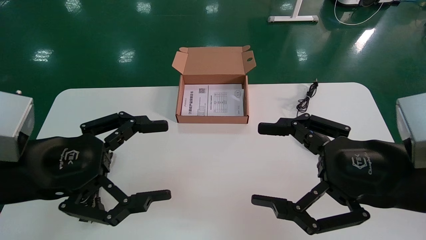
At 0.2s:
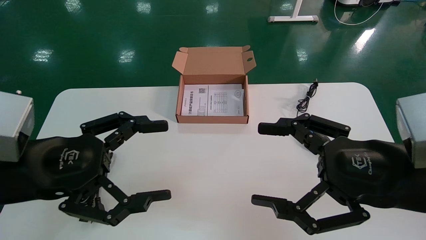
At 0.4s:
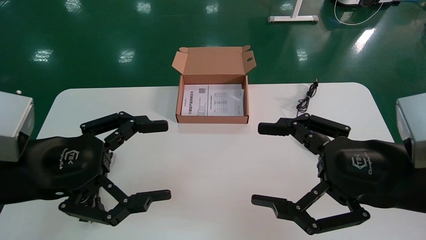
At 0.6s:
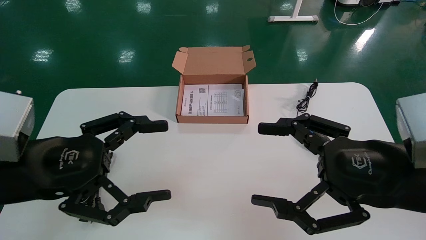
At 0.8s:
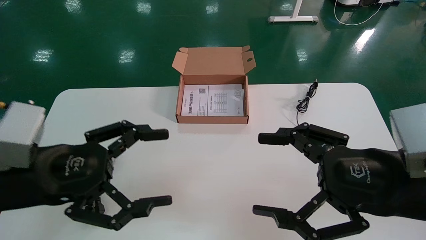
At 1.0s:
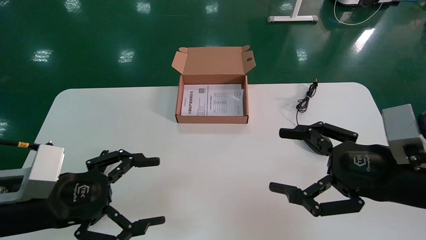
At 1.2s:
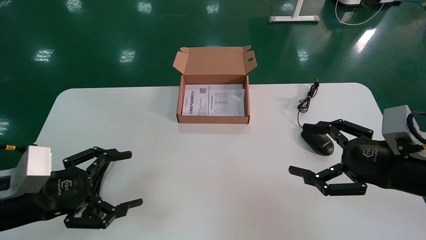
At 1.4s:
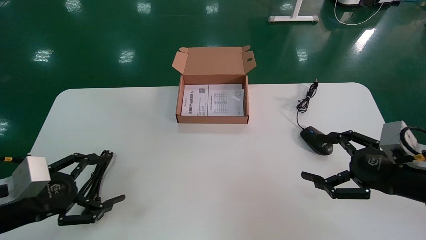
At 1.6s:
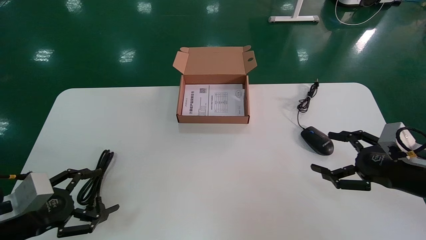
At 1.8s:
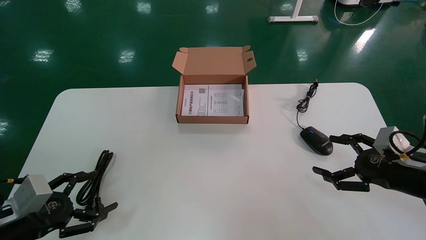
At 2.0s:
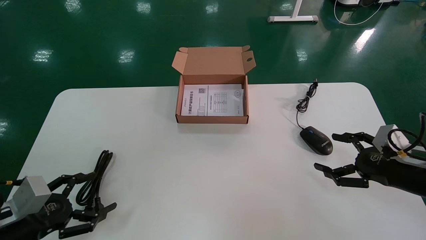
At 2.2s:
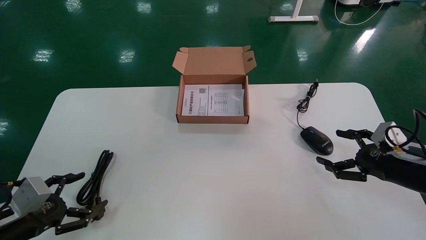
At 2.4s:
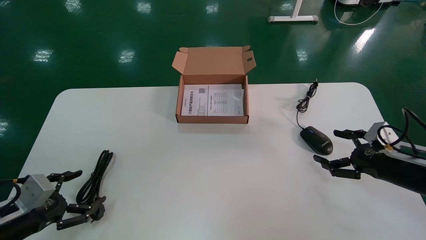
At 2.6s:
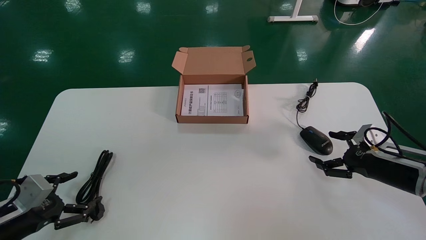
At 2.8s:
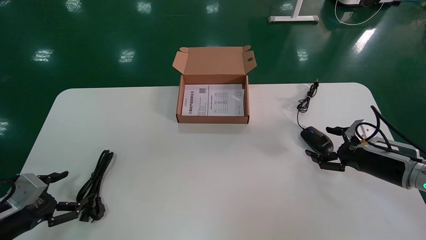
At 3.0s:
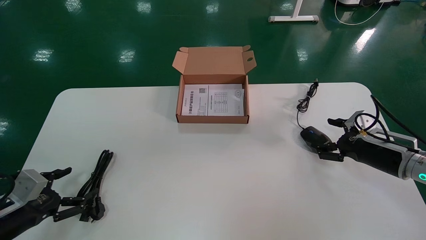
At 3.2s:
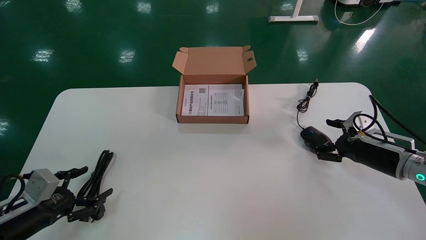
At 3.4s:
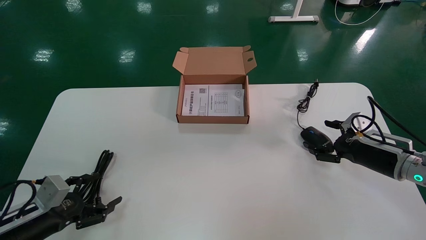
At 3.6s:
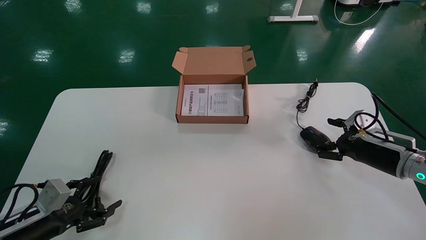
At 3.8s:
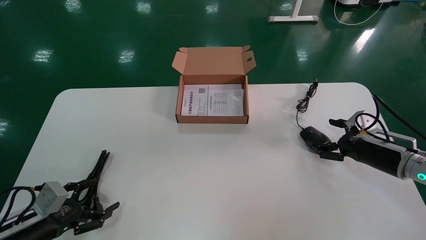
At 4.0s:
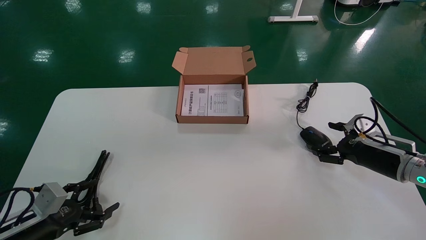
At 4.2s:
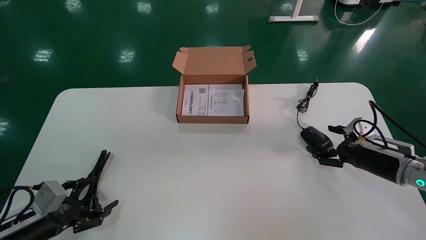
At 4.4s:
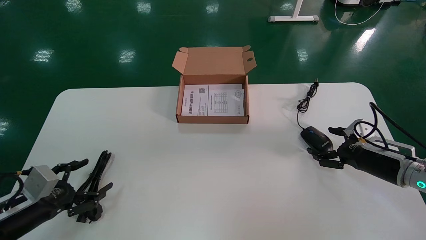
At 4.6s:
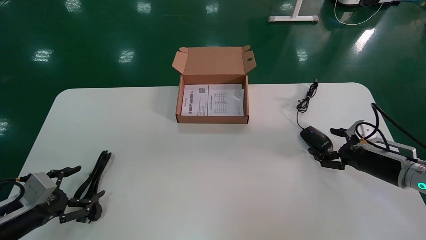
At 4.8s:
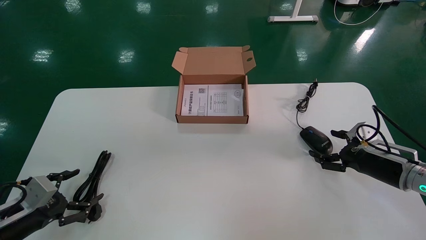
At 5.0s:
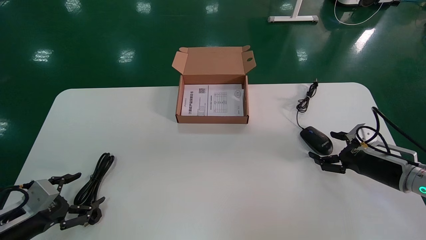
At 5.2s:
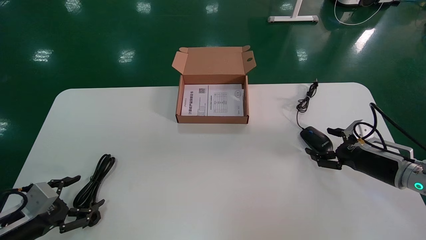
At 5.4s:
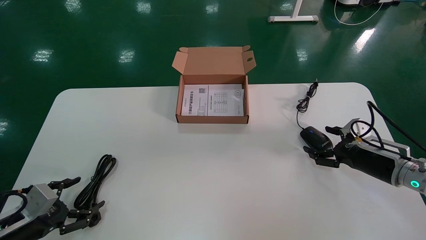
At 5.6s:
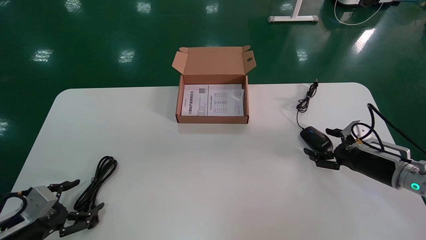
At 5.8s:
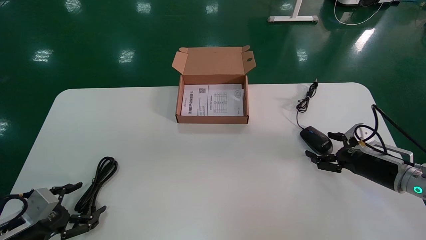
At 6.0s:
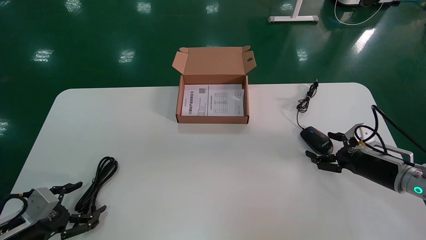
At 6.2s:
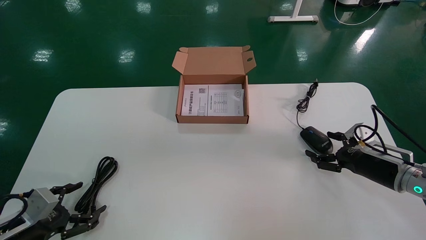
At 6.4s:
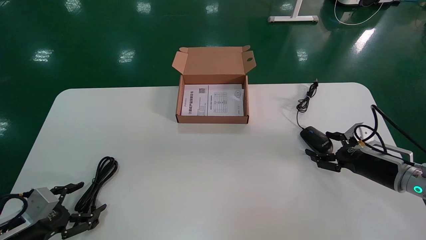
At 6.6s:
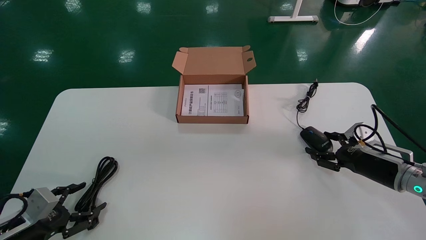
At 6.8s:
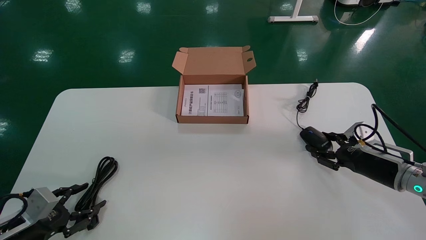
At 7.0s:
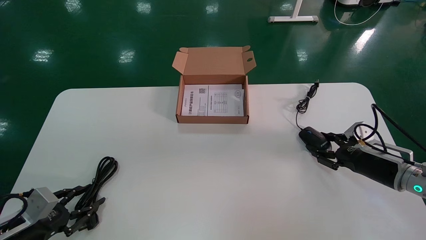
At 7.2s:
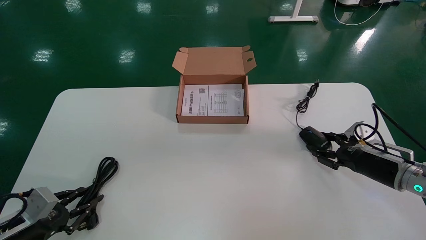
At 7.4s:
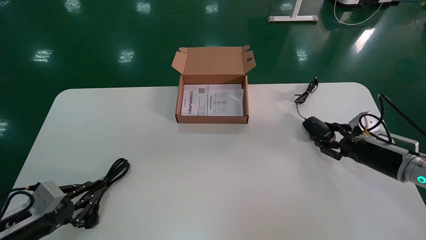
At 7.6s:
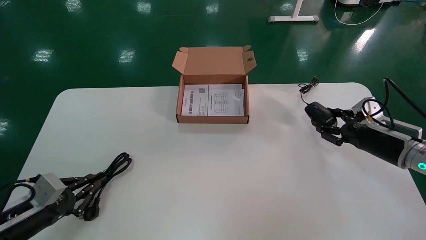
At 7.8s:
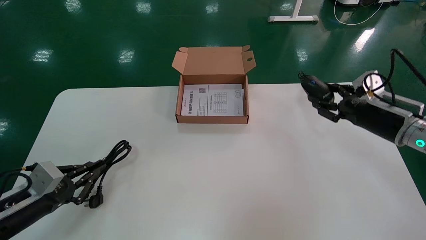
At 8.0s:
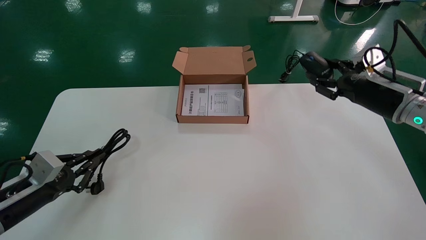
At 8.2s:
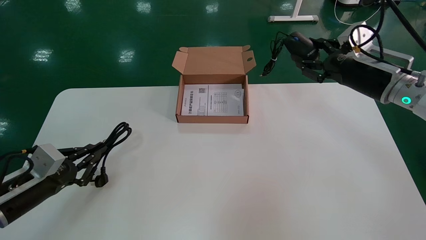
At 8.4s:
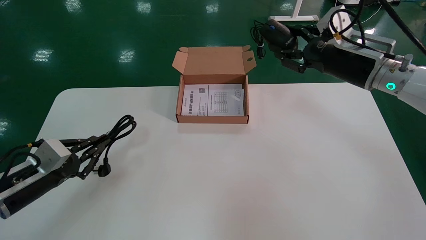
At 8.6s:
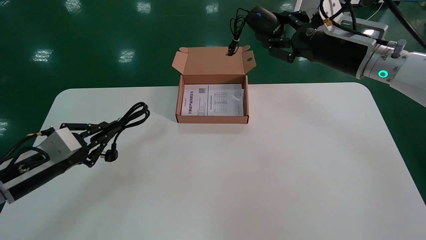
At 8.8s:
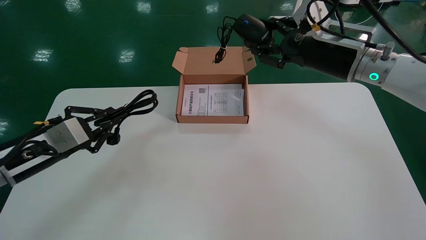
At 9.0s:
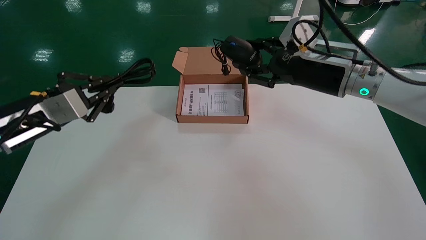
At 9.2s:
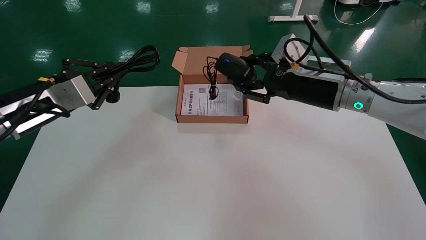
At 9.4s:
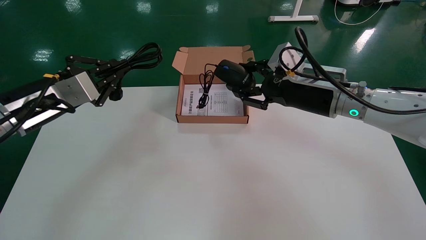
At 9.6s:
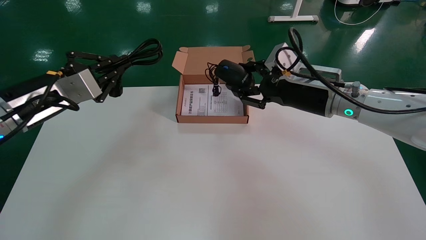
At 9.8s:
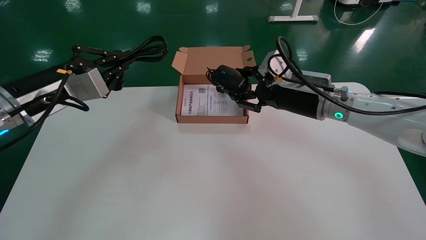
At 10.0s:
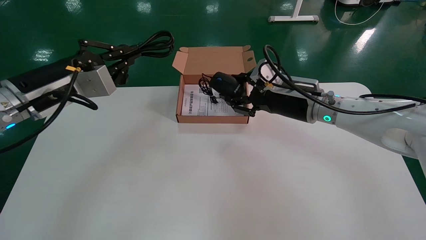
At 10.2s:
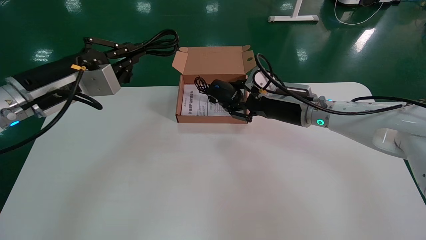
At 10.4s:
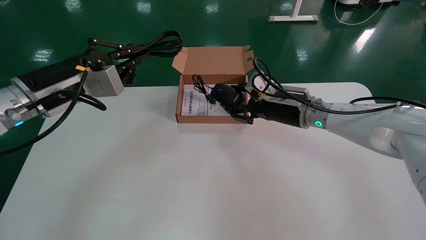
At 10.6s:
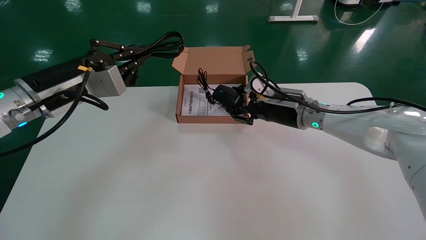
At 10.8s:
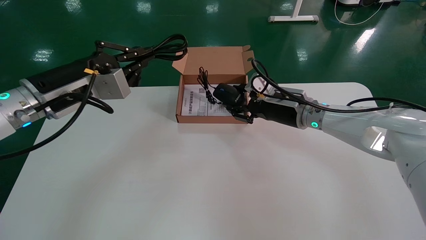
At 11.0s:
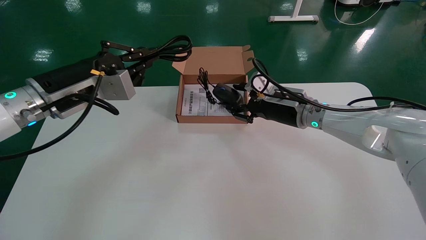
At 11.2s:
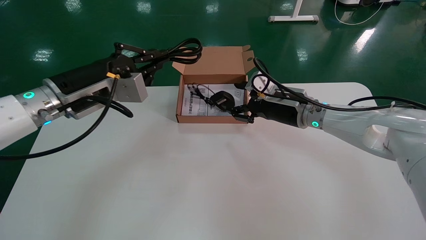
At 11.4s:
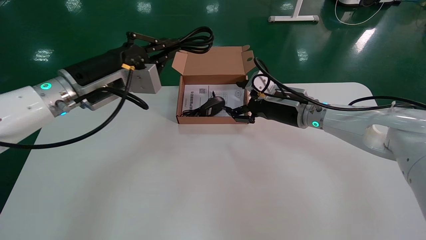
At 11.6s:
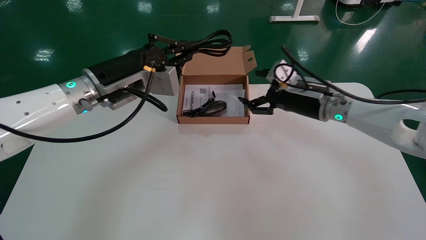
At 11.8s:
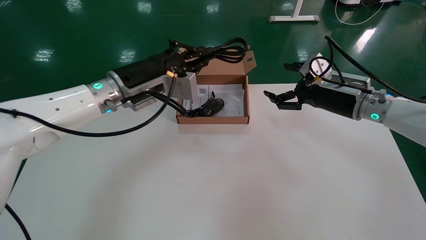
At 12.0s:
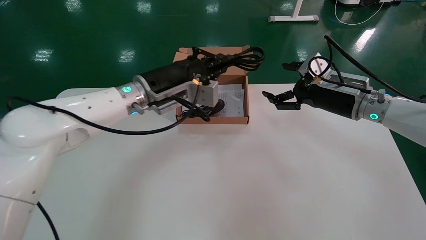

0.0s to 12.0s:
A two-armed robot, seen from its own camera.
Step, 0.8s to 7.4s: Grab and pick up the mouse and power cord from the accessory packaging area.
0.0s to 1.6s: The left gripper shifts about 20 cm downward and to the left. Meanwhile the right gripper heads to the right, forward and downward, covering some 20 cm.
1.6s to 3.0s: The left gripper moves downward, approximately 5 cm. The right gripper goes about 10 cm forward.
3.0s to 6.0s: The grippers stay close to where they were, moving slightly.
6.0s to 7.6s: The left gripper closes up, while the right gripper travels upward by about 5 cm, and closes up.
7.6s to 9.0s: The right gripper is displaced to the left and upward by roughly 25 cm. The left gripper travels upward by roughly 20 cm.
9.0s to 10.4s: The left gripper travels upward and to the right by roughly 10 cm; the right gripper goes some 10 cm downward.
10.4s to 12.0s: The left gripper is displaced to the right and forward by roughly 15 cm; the right gripper goes roughly 10 cm to the right, and opens up.

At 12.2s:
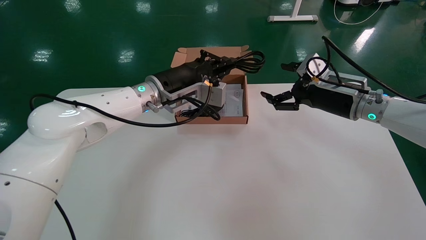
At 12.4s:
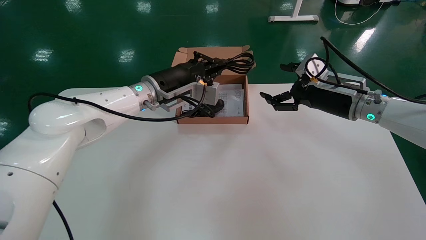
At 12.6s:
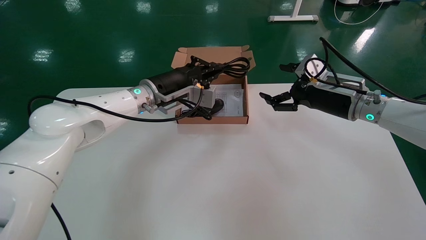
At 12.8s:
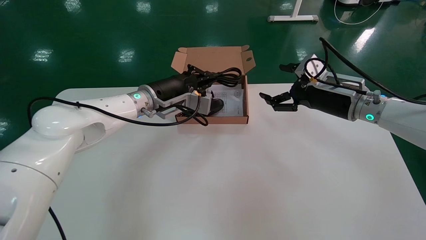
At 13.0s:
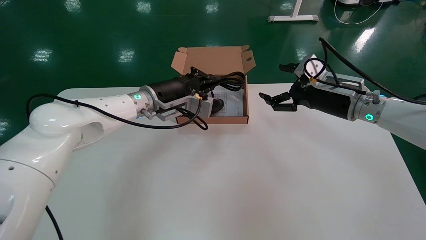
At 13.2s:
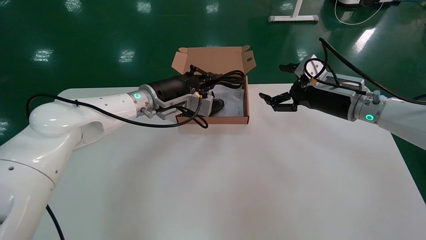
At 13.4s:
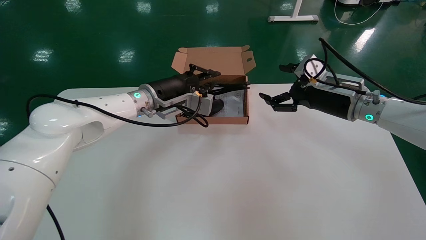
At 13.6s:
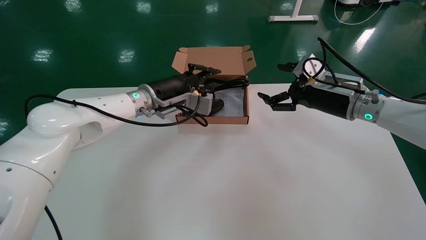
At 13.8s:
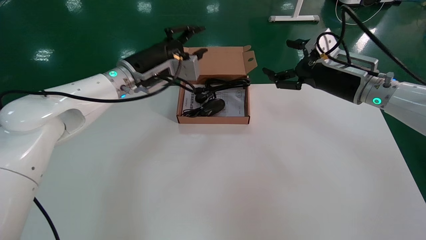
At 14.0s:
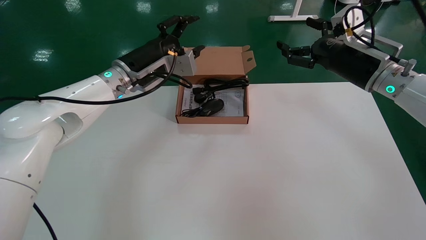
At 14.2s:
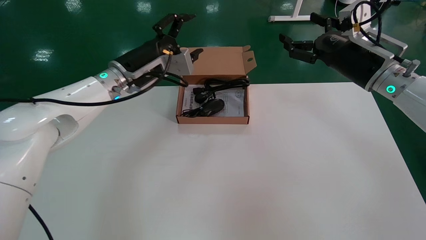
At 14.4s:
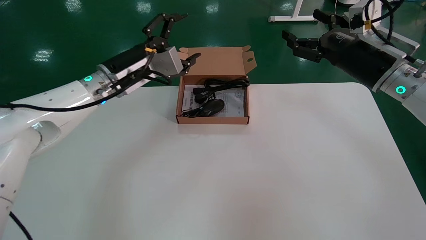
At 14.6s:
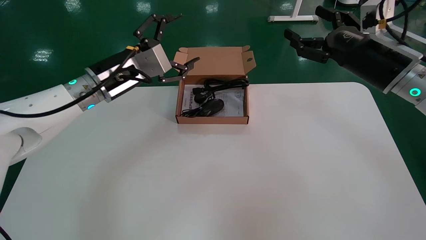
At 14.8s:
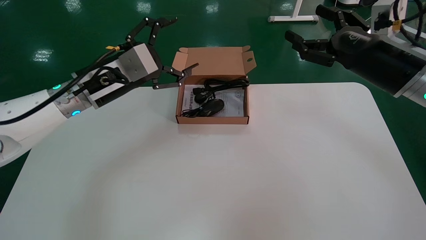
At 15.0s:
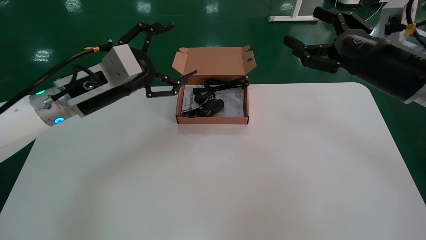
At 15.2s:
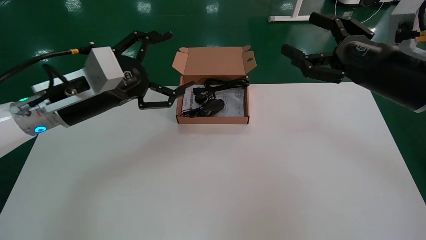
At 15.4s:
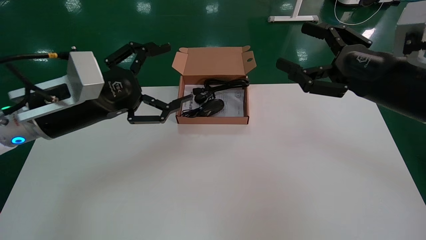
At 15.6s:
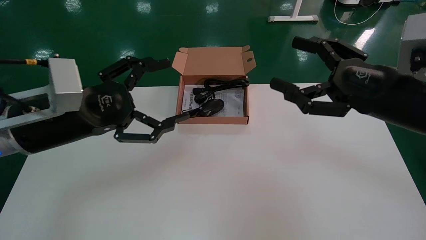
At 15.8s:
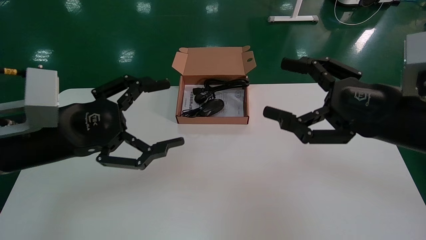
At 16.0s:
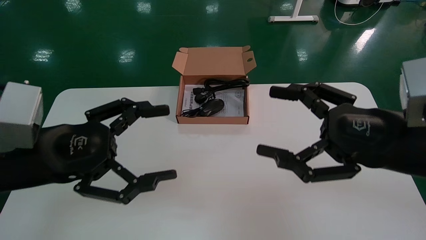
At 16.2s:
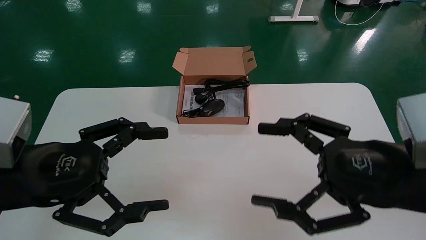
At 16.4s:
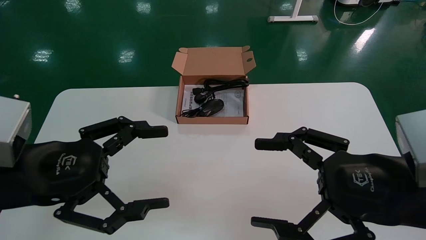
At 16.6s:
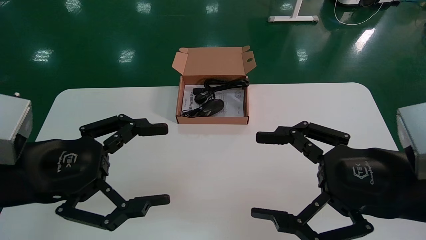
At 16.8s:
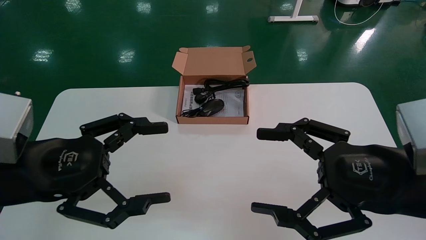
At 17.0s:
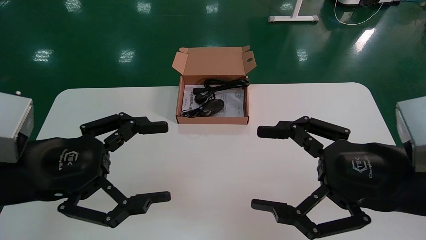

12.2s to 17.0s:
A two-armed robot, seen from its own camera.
13.8s to 15.4s: The left gripper moves backward and to the left, about 20 cm, and opens, while the right gripper is displaced backward by roughly 15 cm.
15.4s to 17.0s: The left gripper travels backward by some 10 cm, while the right gripper moves backward and downward, some 10 cm.
